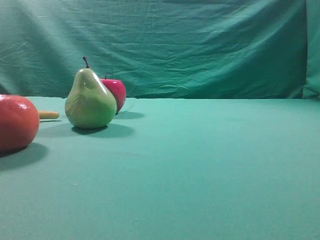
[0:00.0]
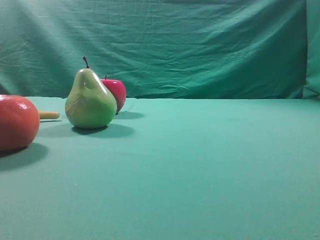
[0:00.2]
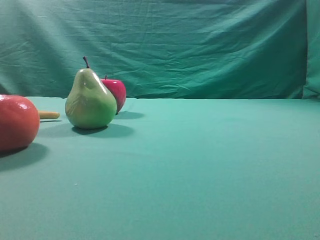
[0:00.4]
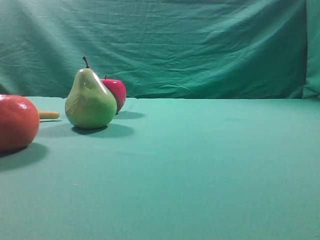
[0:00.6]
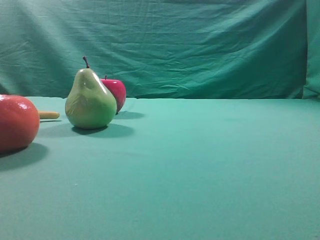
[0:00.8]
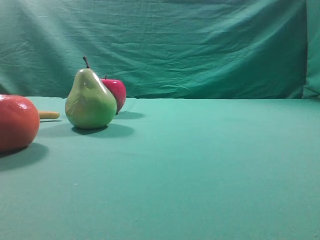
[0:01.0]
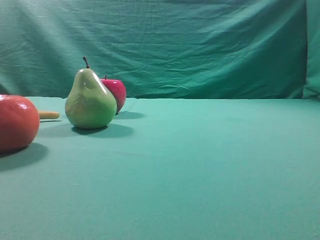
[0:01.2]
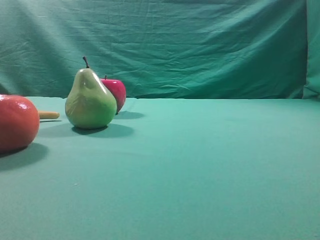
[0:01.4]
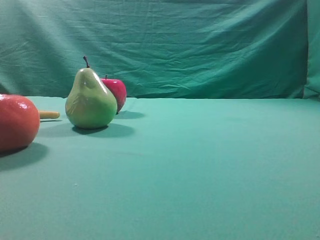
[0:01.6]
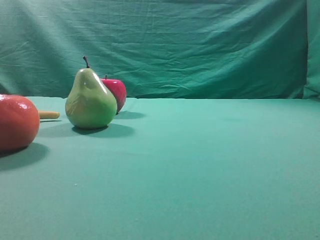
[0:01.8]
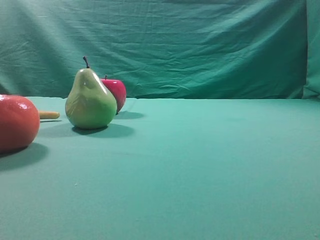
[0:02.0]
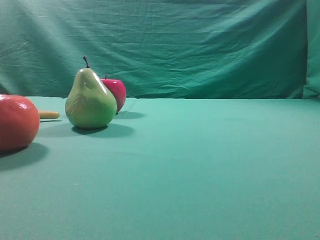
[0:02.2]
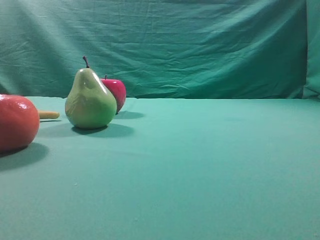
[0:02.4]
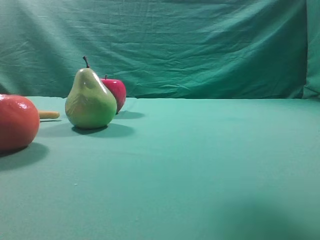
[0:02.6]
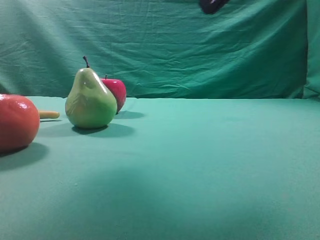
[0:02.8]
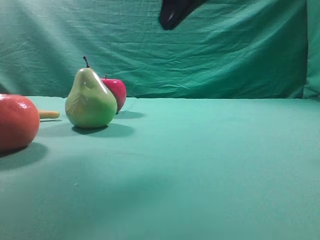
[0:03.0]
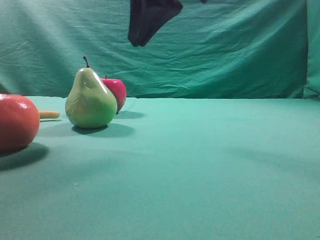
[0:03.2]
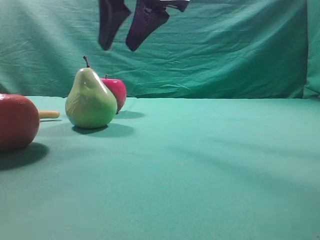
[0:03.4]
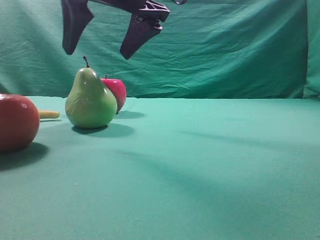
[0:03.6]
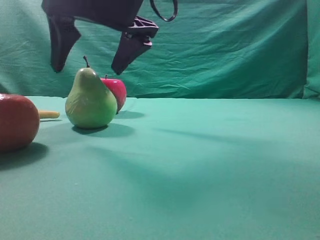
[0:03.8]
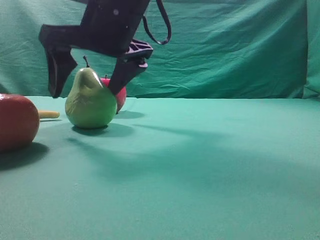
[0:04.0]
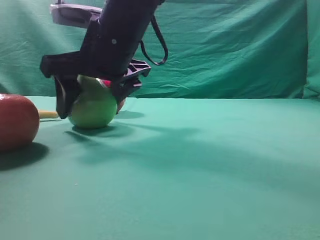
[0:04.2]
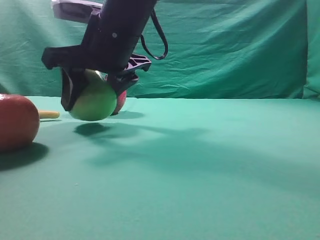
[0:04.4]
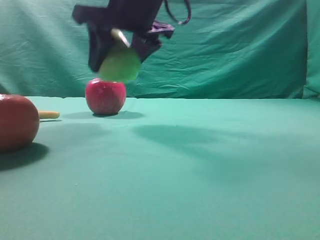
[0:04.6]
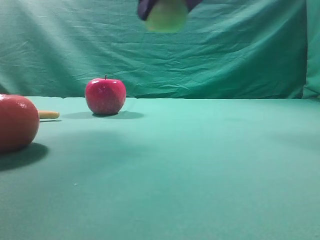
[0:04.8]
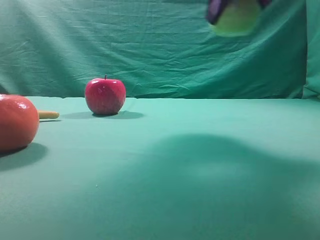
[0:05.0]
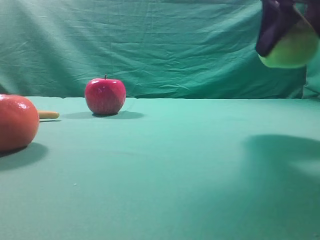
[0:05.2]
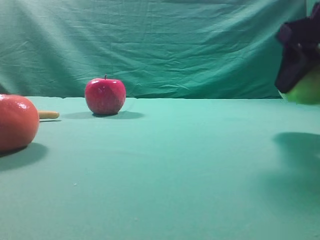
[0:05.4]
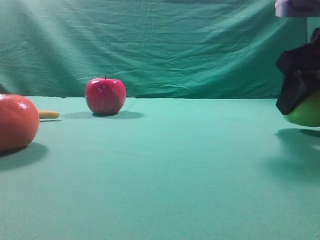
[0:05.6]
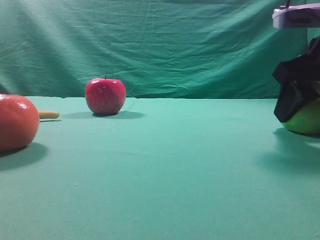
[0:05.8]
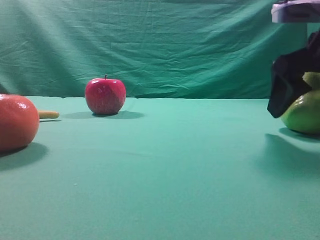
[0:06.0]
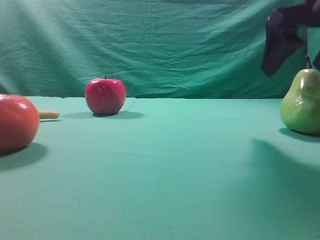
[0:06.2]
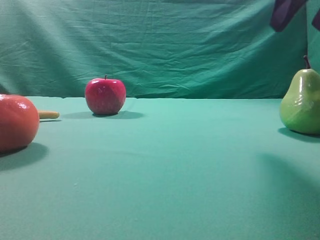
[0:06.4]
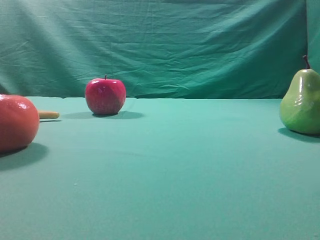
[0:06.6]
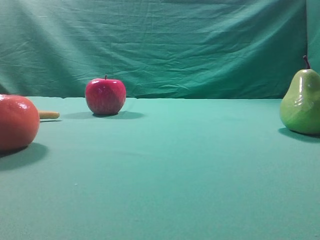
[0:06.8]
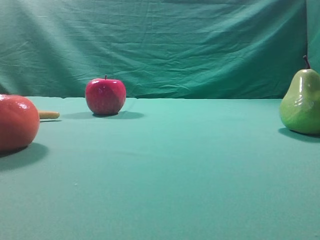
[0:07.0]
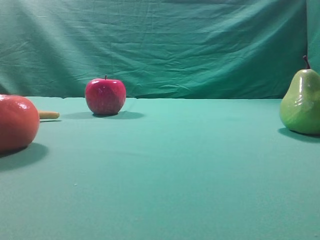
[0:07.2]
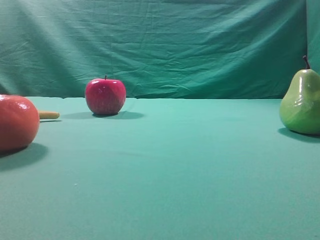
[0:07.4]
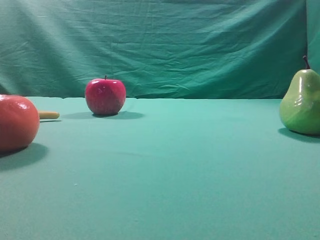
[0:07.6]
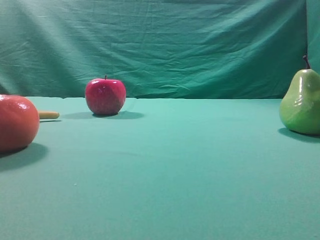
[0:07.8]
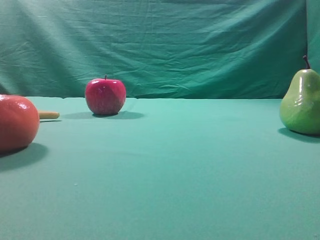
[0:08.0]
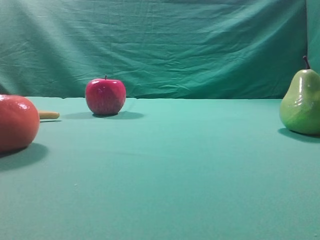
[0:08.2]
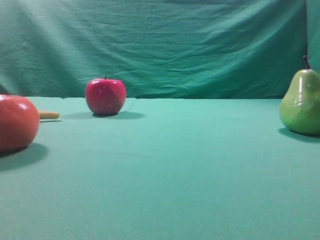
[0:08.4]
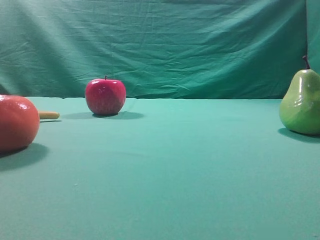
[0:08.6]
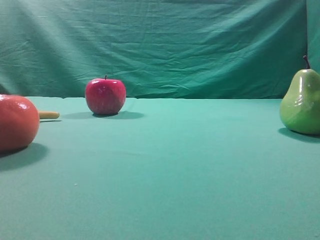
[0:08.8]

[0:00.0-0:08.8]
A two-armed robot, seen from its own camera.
Task of the whole recording: Grasp the pear and place it on one side of the table.
Step, 0:00.0 to 0:04.4: Grasp the high-fiber fruit.
Step, 0:04.6 to 0:06.2: Place it on the right side of the table.

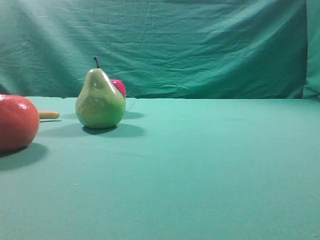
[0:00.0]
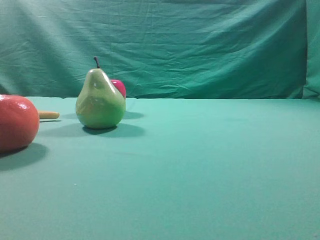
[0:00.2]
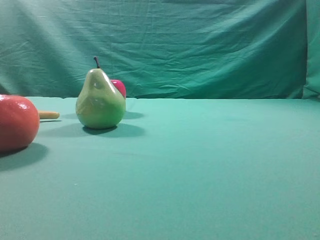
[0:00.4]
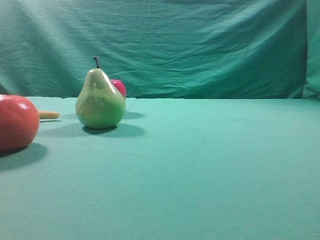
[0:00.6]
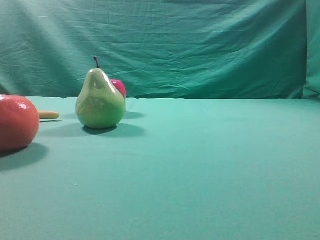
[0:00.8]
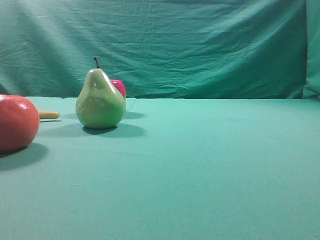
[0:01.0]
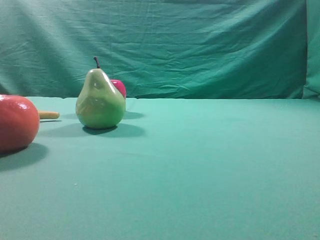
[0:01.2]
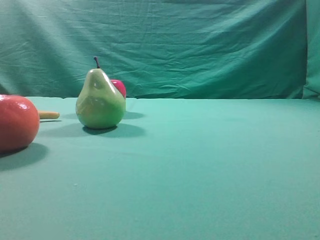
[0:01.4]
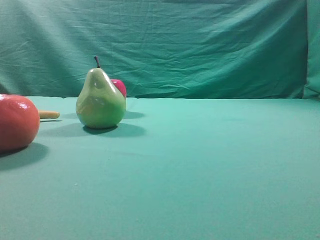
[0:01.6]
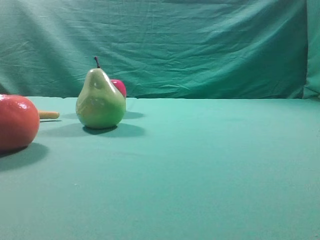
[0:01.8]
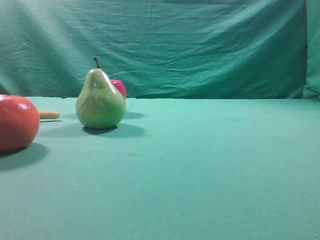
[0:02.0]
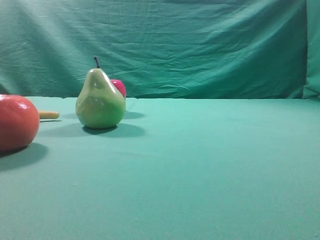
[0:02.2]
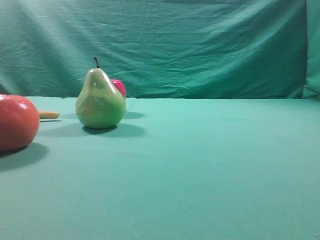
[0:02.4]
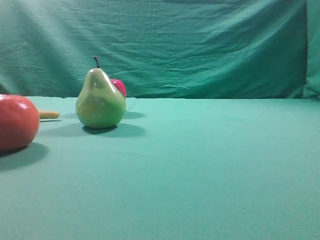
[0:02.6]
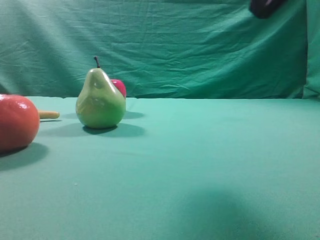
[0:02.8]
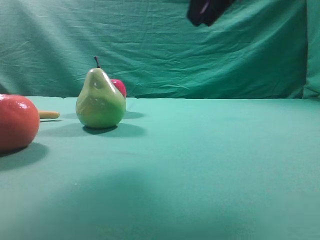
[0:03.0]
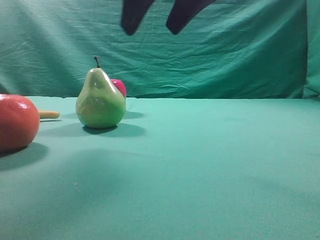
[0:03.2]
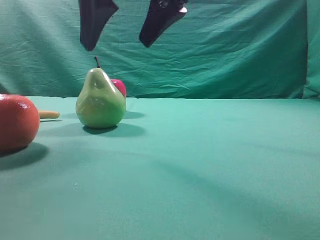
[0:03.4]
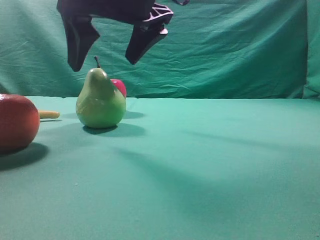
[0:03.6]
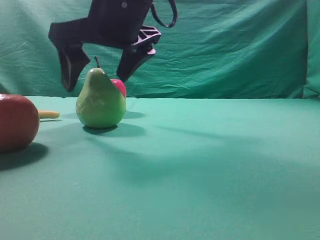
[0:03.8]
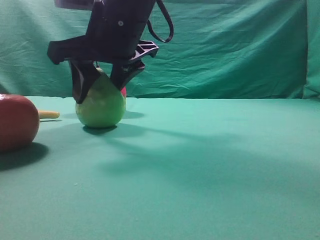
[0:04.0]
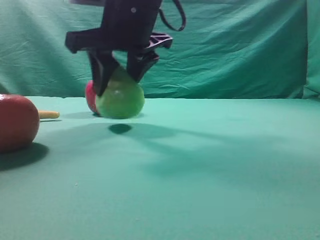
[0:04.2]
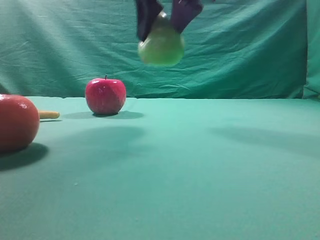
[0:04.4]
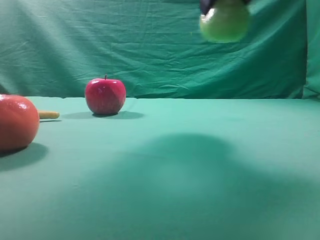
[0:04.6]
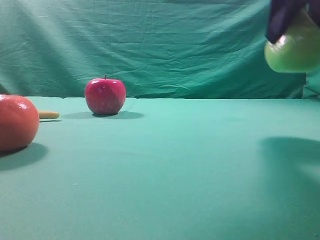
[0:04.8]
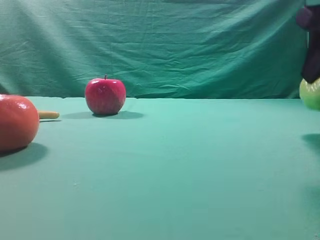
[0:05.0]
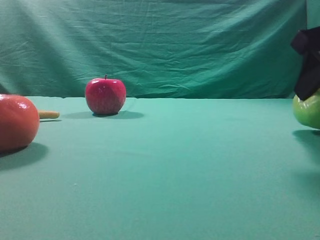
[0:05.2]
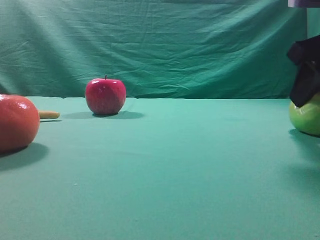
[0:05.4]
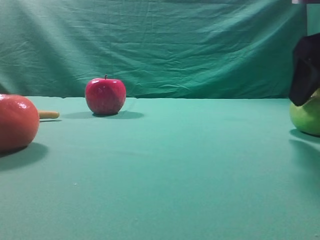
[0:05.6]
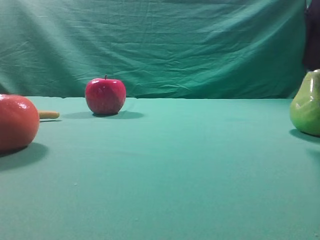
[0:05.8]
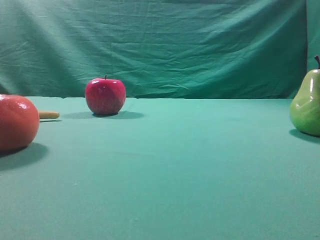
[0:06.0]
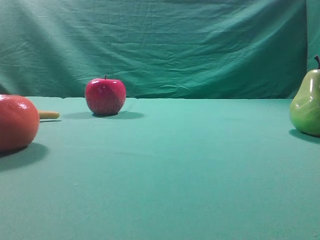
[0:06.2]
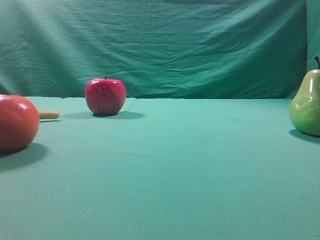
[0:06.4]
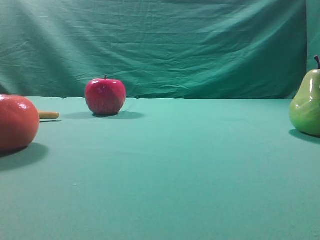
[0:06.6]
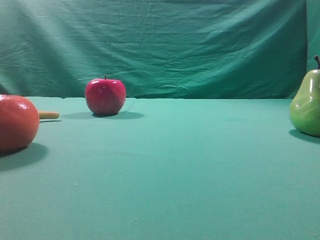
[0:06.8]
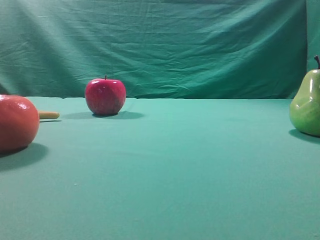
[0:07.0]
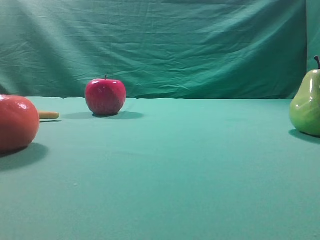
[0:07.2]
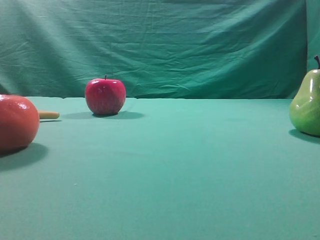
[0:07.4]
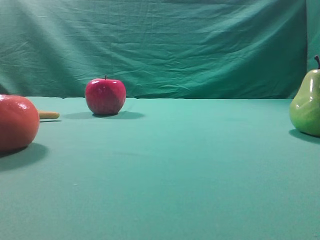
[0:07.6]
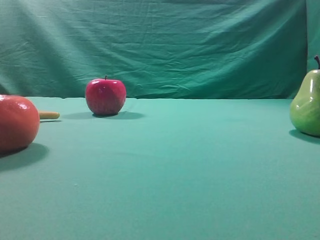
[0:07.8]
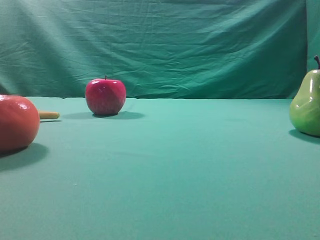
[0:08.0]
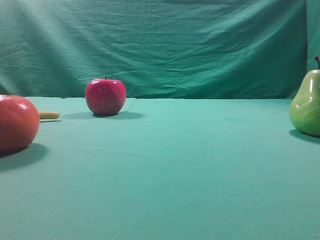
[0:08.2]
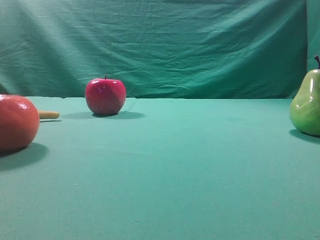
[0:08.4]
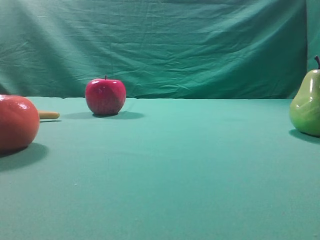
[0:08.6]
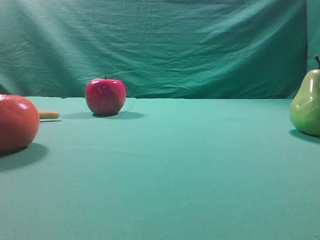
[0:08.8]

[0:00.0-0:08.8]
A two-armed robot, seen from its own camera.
Task of the whole recording: Grasp the pear and place it on one side of the table.
Step, 0:00.0 to 0:04.2: Grasp the high-fiber fruit.
Step, 0:04.4 to 0:05.8: Place it on the right side of the table.
